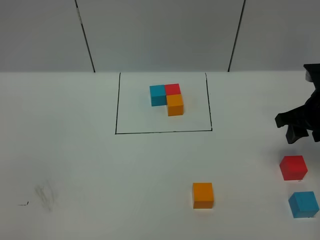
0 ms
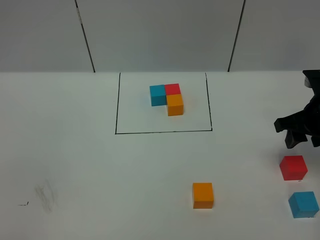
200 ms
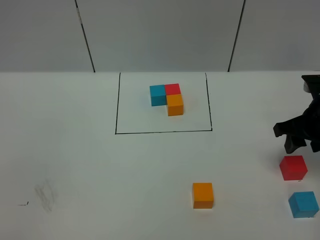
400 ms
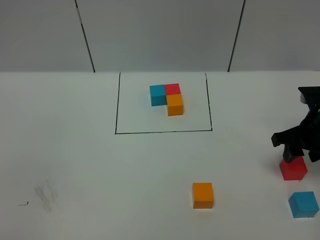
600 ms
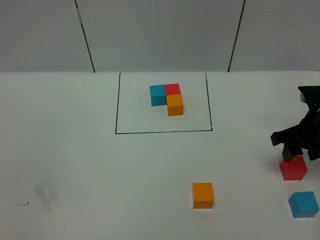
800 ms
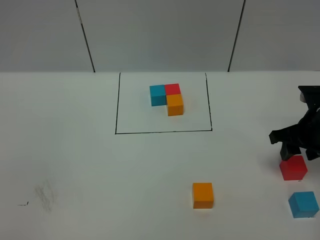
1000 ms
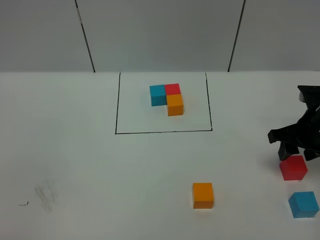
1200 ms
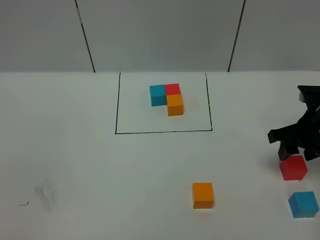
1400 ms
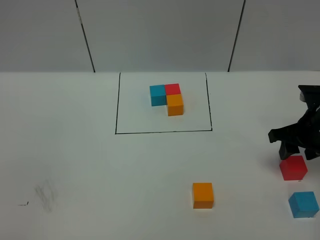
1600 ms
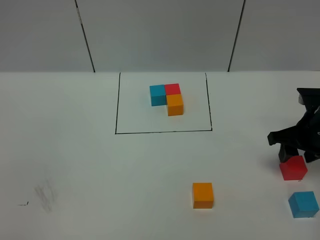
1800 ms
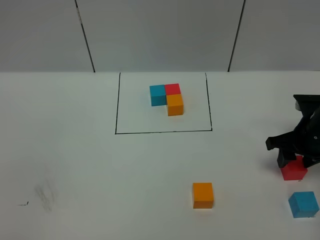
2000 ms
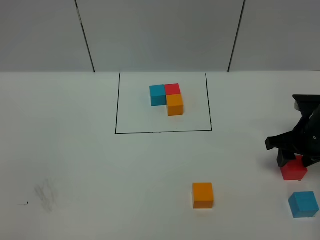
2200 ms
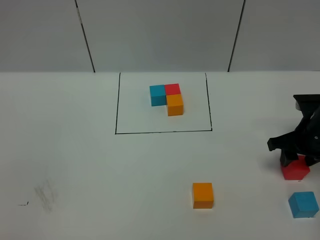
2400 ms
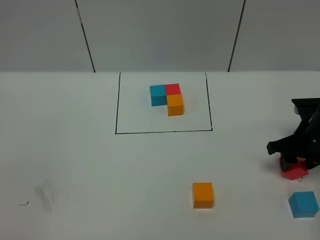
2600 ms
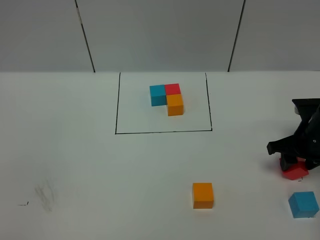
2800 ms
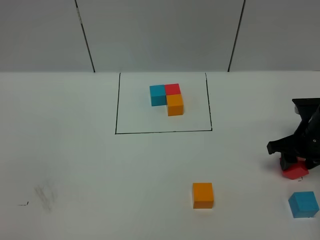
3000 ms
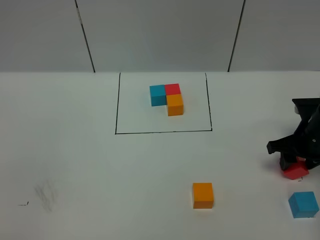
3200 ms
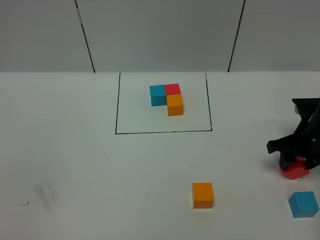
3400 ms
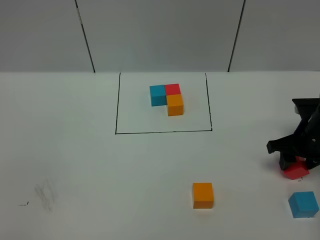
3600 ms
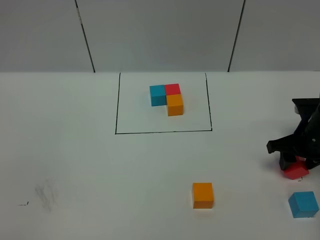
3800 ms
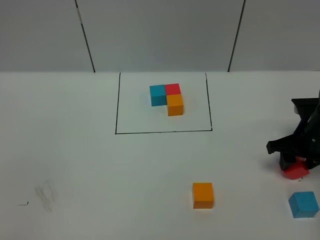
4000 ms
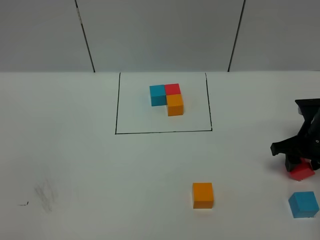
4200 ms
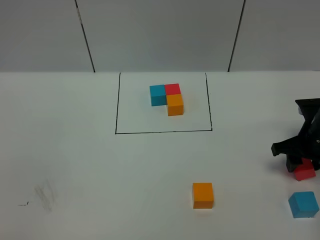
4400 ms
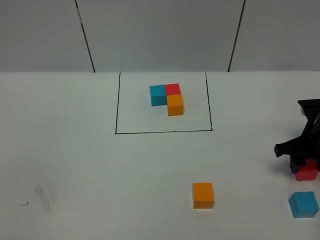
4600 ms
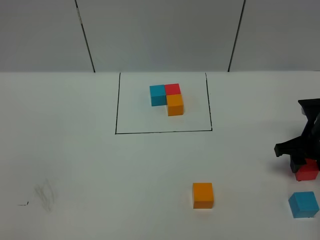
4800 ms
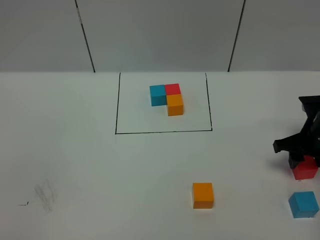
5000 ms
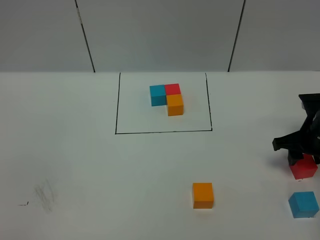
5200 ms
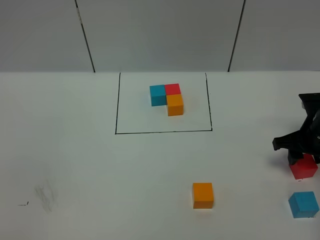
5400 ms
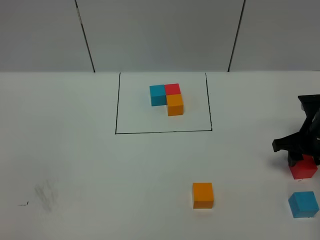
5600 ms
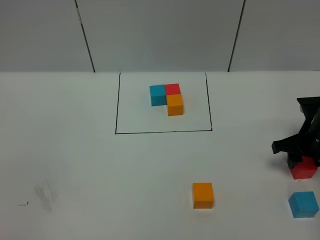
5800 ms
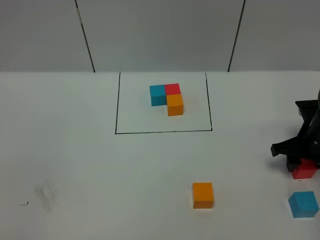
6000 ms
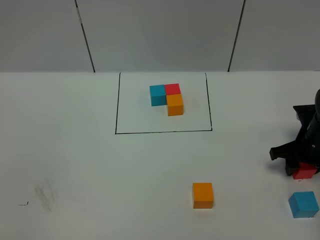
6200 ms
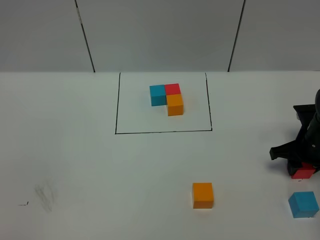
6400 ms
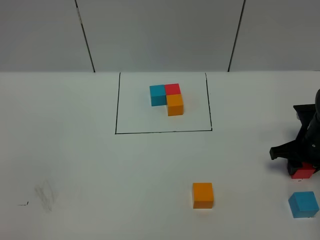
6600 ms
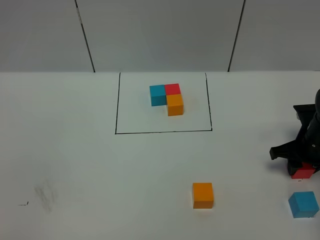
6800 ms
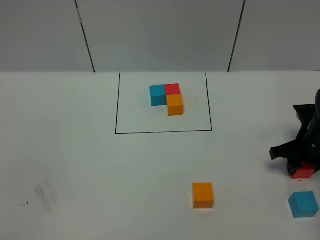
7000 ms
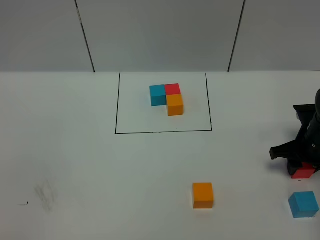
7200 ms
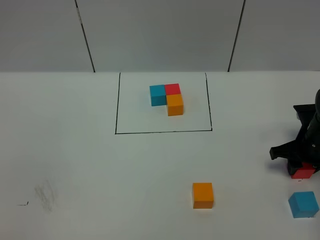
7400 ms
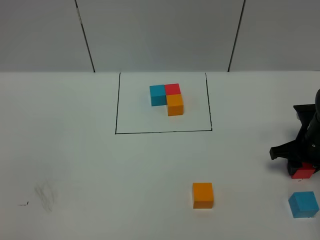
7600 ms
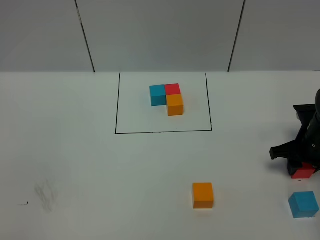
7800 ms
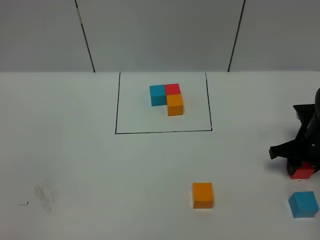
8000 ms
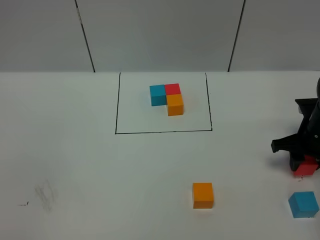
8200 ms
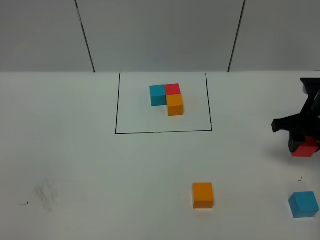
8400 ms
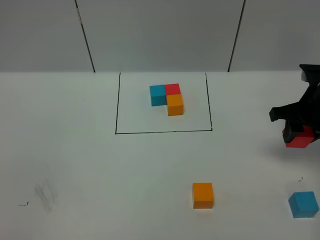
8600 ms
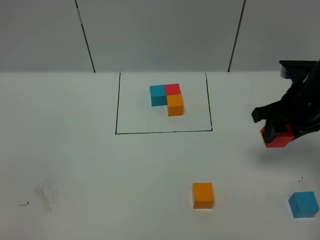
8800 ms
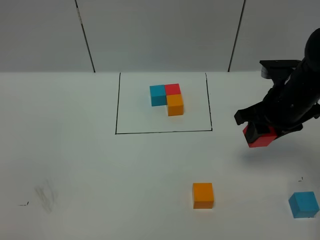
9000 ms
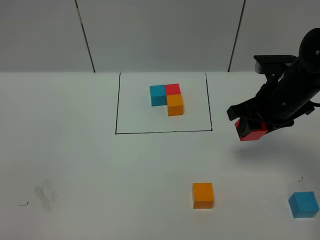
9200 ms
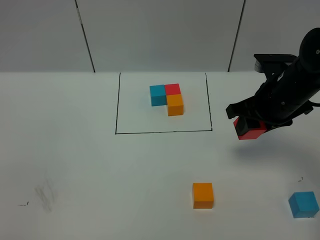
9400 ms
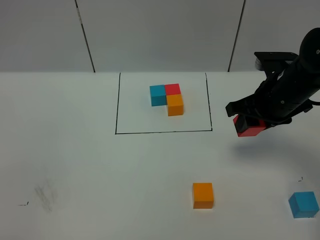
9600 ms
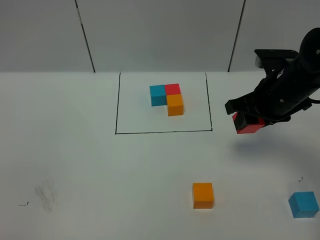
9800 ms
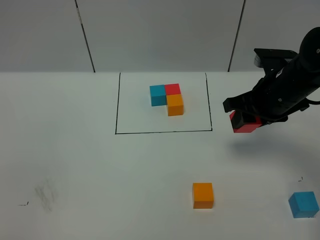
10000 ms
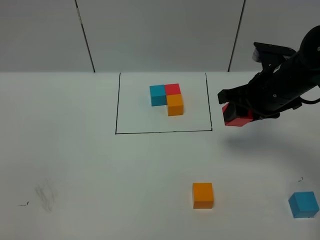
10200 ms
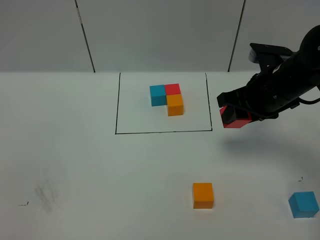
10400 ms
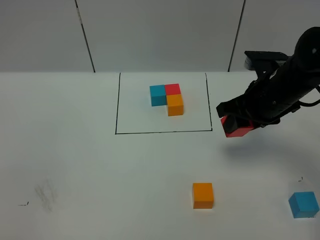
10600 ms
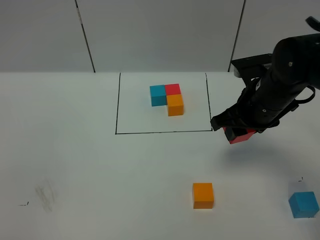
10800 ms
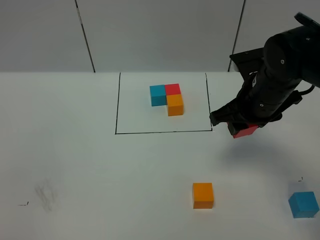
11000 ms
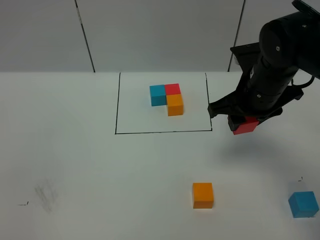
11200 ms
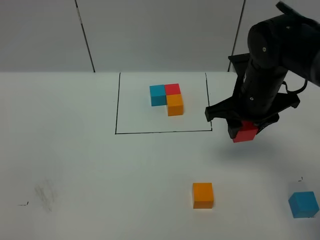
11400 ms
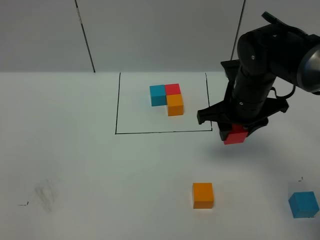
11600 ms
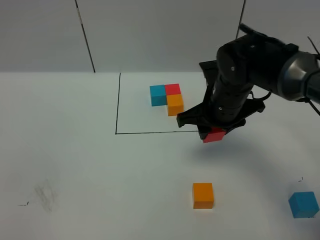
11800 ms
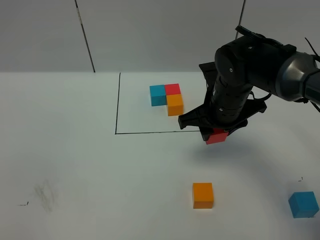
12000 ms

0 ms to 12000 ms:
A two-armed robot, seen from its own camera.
Task of the whole recording: According to the building block template in front, assemble the scattered blocks together.
0 ms to 1600 ms: The grippers move only a little.
1600 ms to 3000 ms: The grippers stay close to where they were, moving slightly.
3000 ms to 4400 ms: The two grippers keep their place.
6000 ms to 7600 ms: Both grippers stay about where they are.
7600 ms to 9000 ms: The right gripper goes about 15 cm upward and to the left.
9000 ms to 10400 ms: The grippers move only a little.
10400 ms to 12000 ms: The right gripper is displaced to the left by approximately 10 cm.

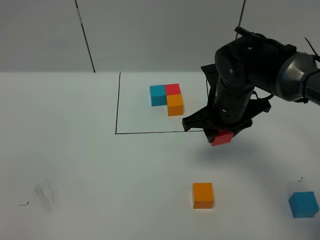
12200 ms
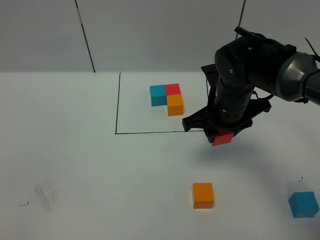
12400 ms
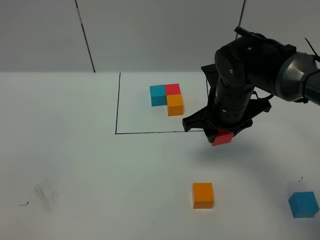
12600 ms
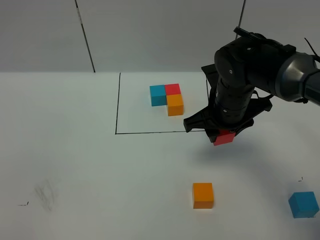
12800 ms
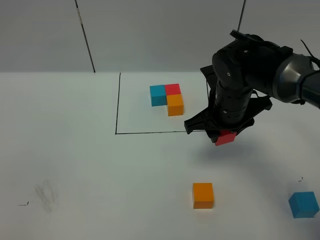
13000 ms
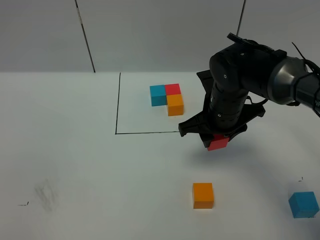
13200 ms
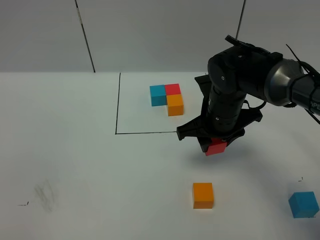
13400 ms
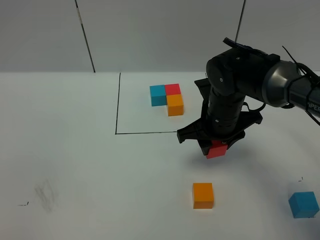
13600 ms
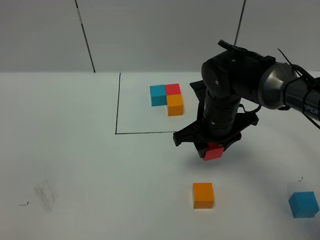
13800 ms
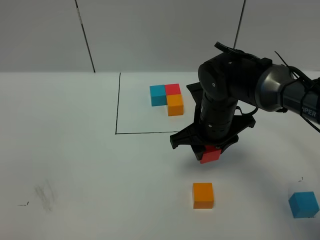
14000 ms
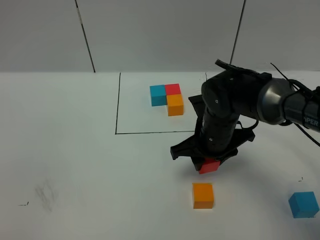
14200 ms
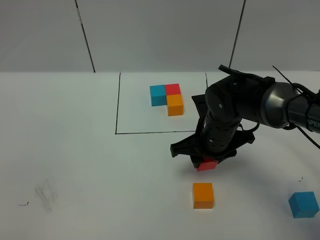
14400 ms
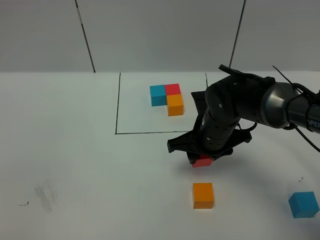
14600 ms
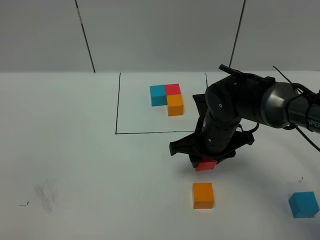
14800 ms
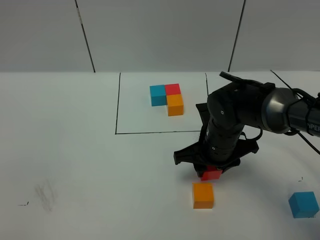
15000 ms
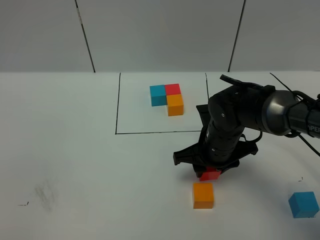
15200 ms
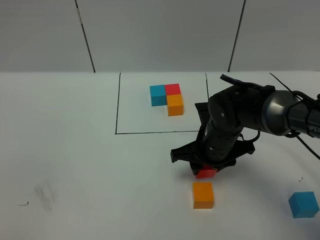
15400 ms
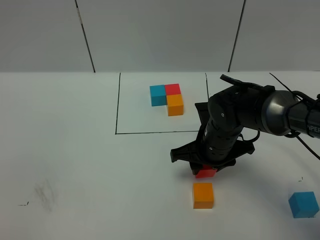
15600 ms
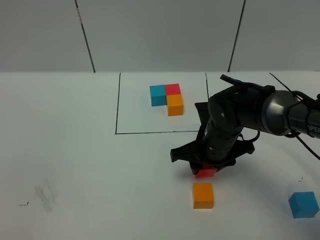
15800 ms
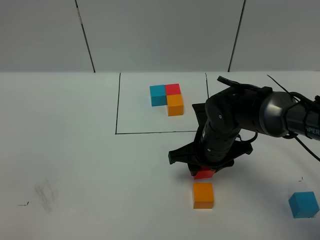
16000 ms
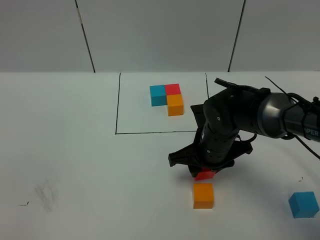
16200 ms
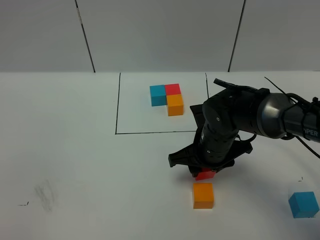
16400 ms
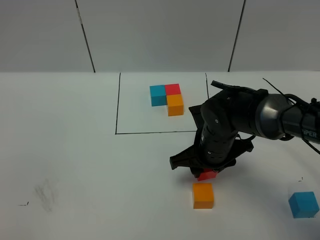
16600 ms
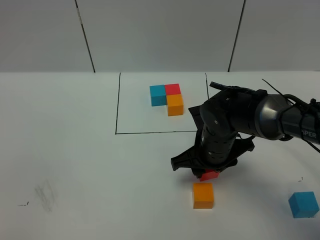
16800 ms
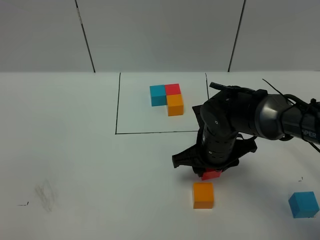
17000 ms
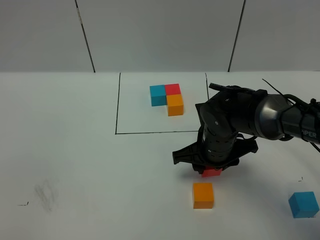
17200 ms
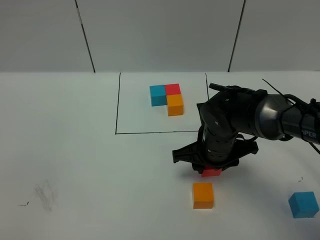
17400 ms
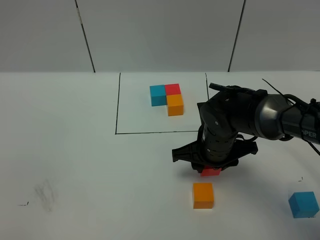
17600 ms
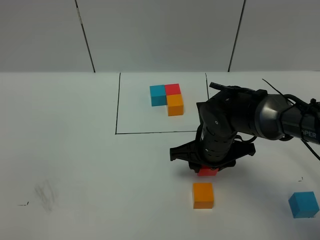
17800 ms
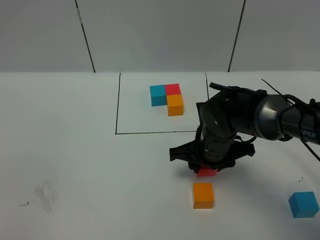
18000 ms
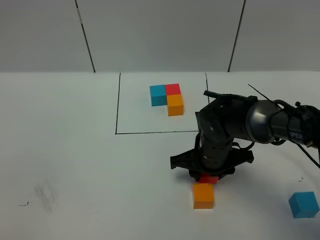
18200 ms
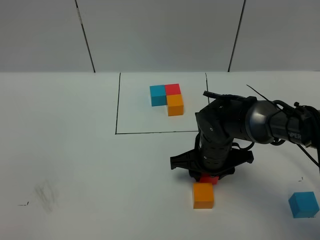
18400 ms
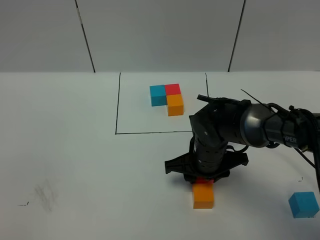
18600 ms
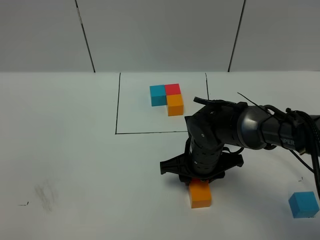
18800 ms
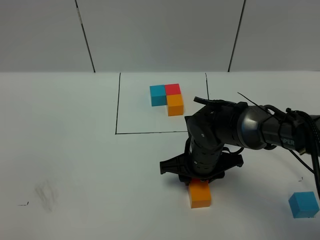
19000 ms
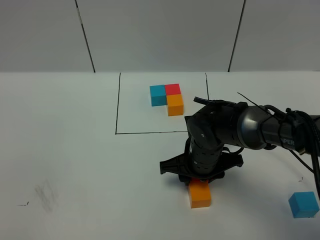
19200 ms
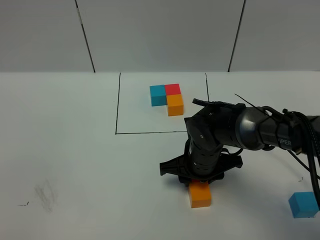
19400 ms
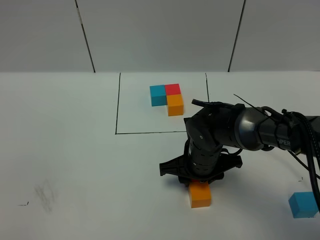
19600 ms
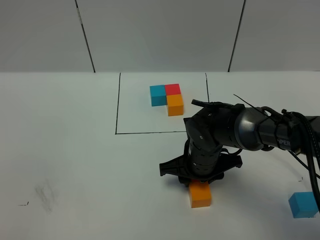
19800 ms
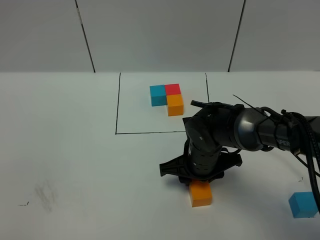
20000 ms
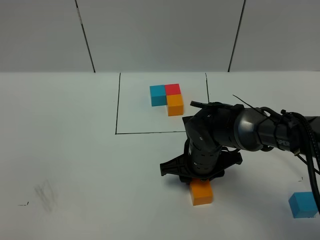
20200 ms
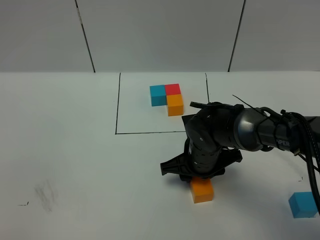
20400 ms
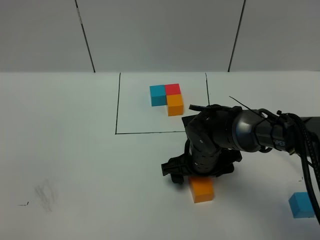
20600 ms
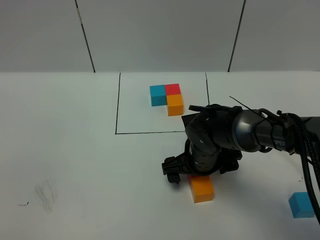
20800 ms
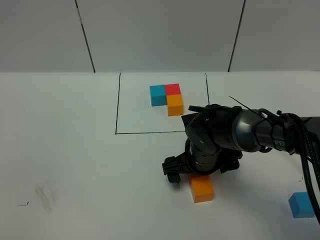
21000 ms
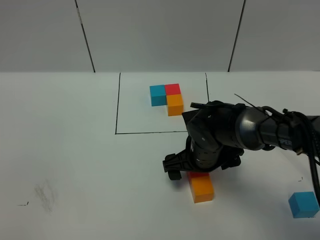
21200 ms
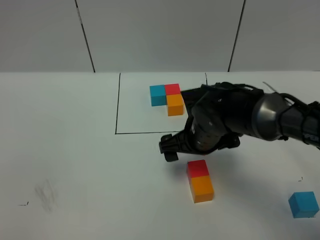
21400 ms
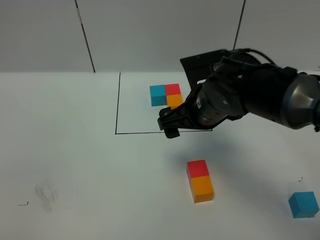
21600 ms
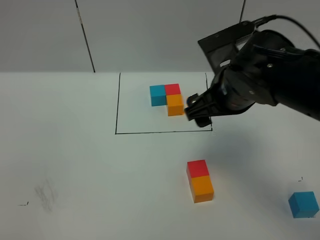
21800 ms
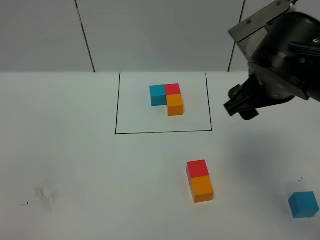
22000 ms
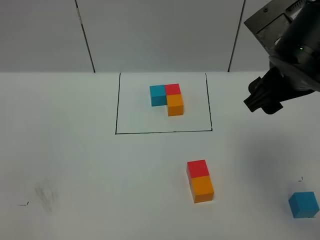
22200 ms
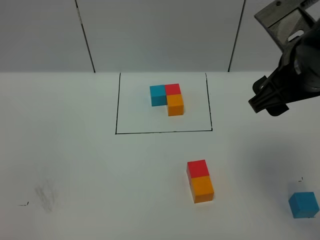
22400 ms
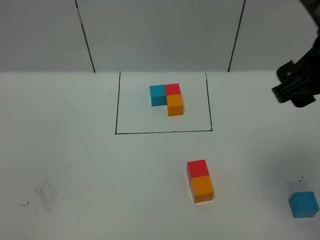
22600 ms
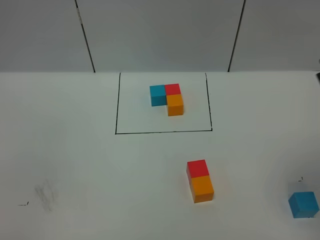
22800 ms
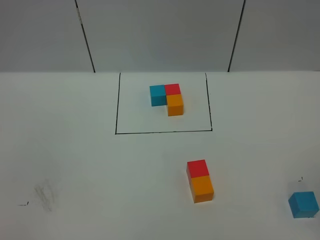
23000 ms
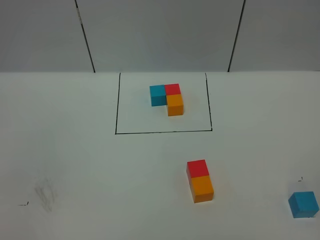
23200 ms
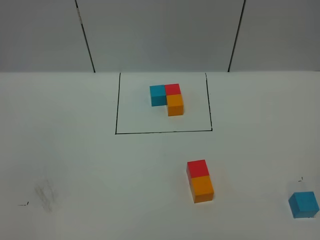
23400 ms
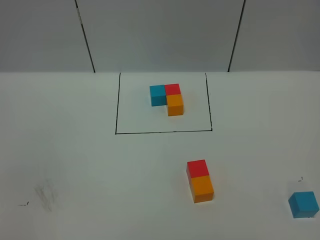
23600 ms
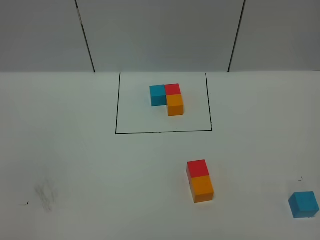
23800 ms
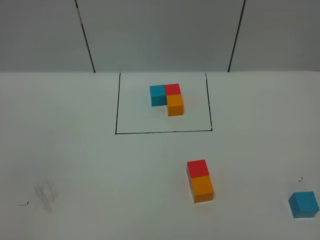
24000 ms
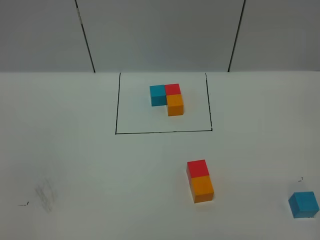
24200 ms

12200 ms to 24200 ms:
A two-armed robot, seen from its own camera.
Task of the whole recording: According to the building block template in front, assemble the scattered blocks together.
Step, 12200 ms to 20800 ms: Put the red cube on the behind of the orange cube.
12200 ms to 13800 ms: The grippers make only small movements.
13800 ms to 15200 ms: The right gripper changes place by approximately 5 cm.
15200 ms to 19800 ms: The grippers move only a little.
19800 ms to 21200 ms: The right gripper opens its fingers.
21200 ms to 22600 ms: The right gripper moves upward and to the right, approximately 30 cm.
22600 ms to 24200 ms: The right gripper is displaced to the right, downward and backward by about 15 cm.
